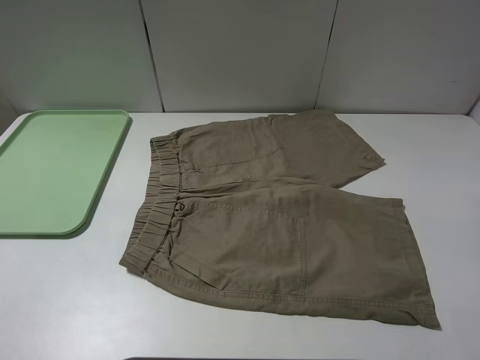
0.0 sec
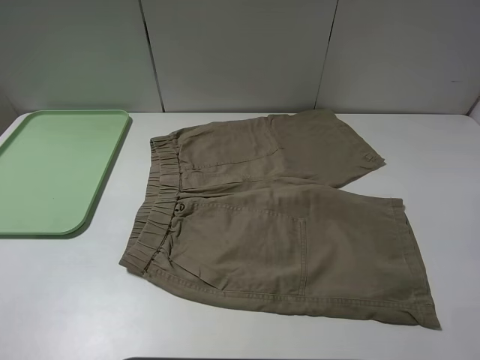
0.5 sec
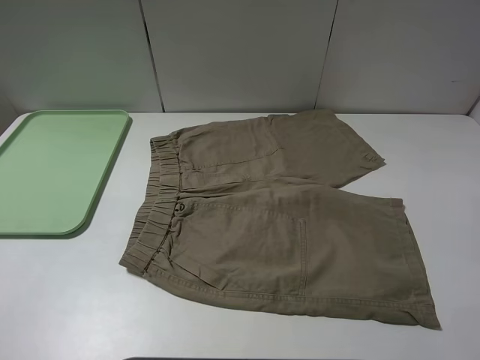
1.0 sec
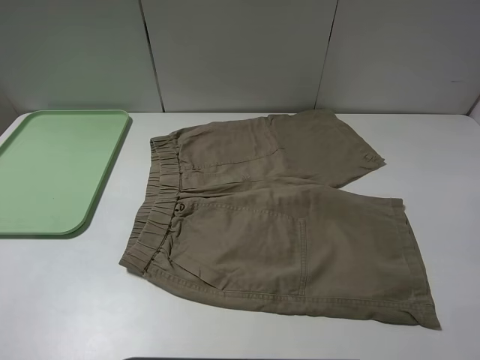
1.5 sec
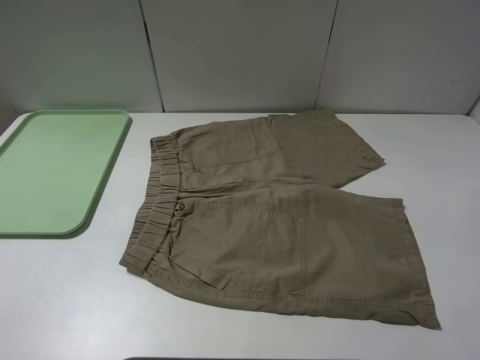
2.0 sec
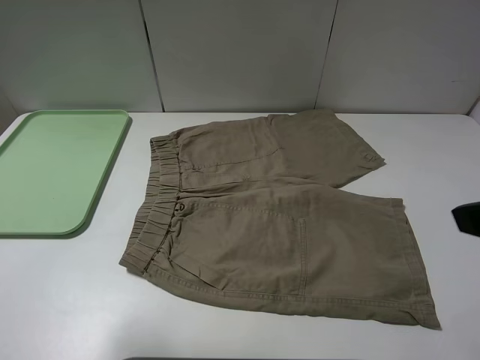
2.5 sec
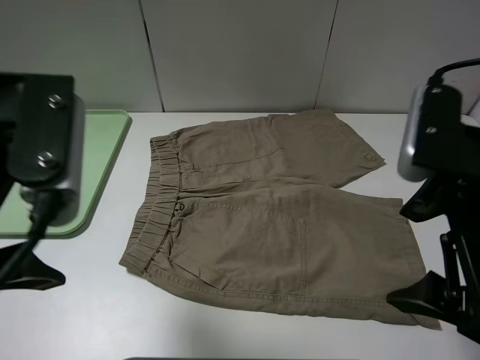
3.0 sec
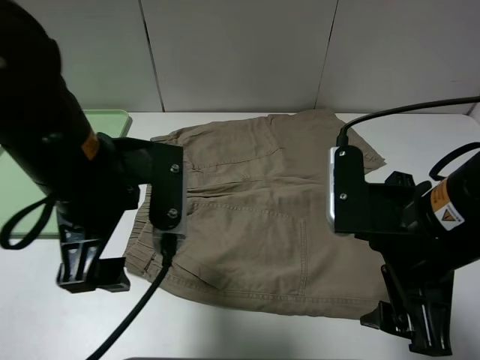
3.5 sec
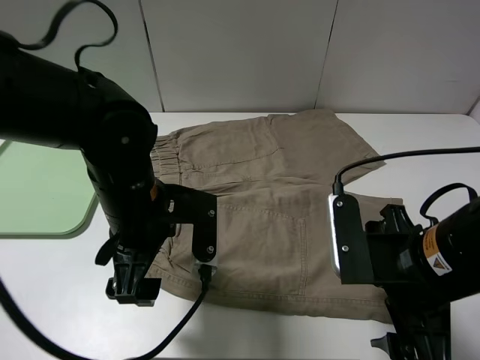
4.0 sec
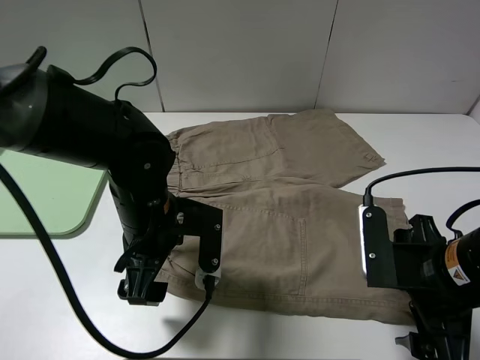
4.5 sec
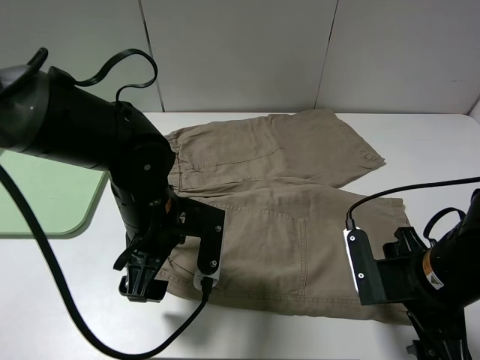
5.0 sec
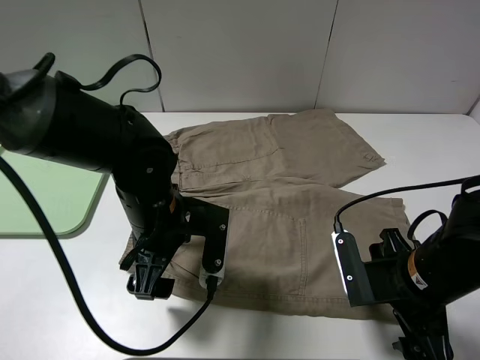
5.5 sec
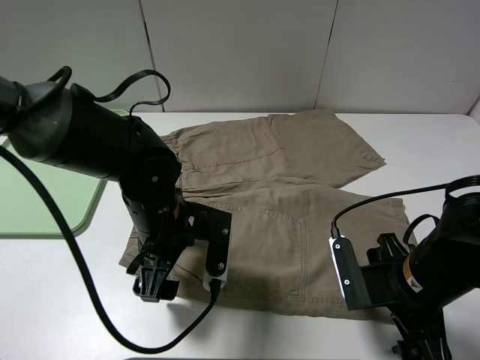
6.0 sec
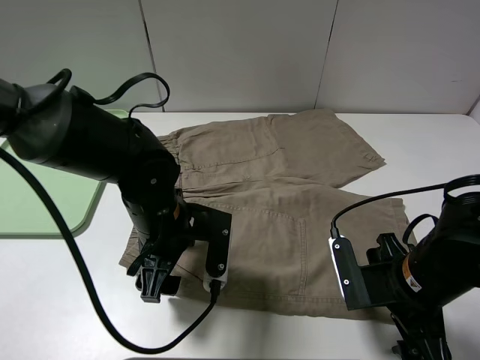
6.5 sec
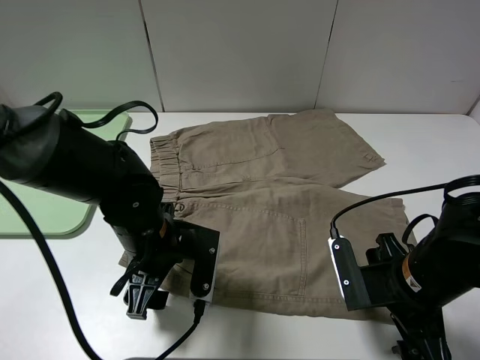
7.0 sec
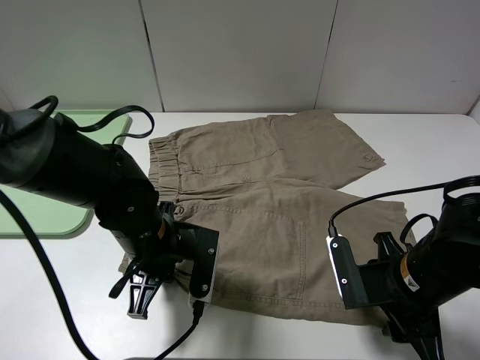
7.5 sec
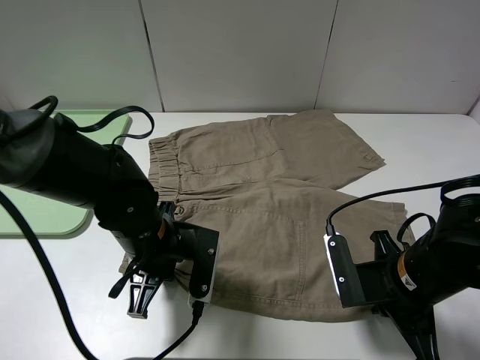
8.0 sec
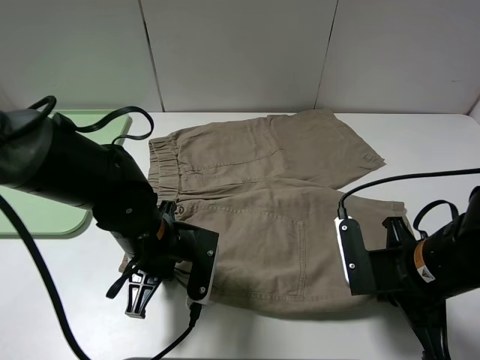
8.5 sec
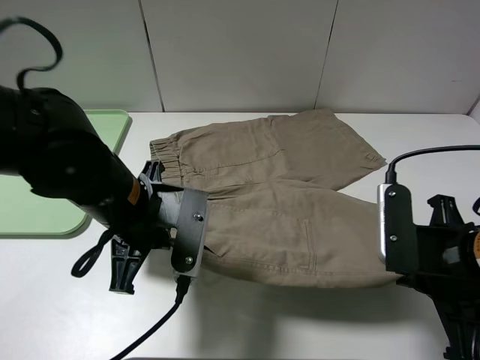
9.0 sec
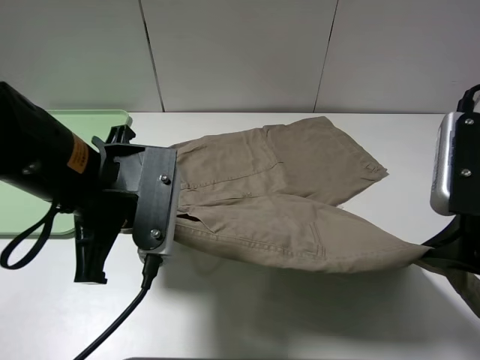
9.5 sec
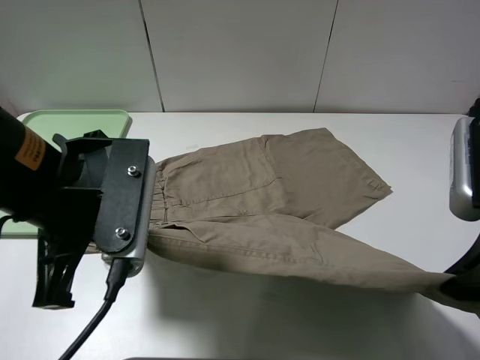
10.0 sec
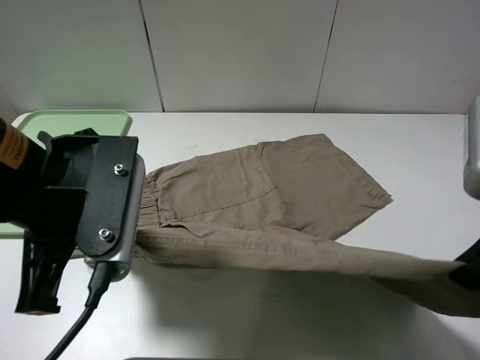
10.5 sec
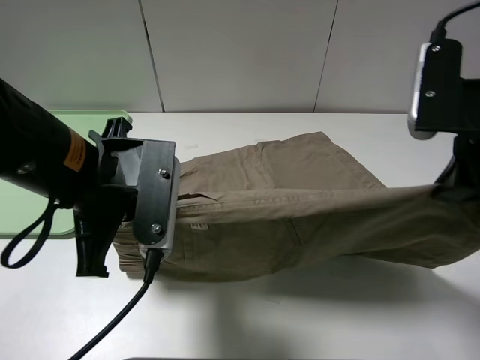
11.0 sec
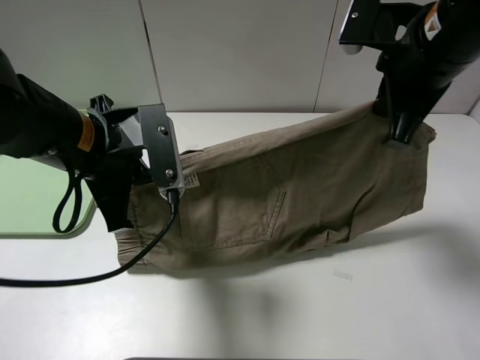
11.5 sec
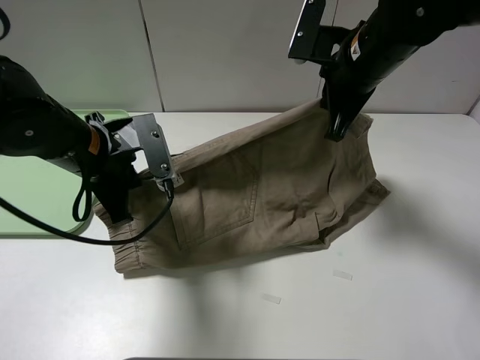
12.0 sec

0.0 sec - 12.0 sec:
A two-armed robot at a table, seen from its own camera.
Task of the whole recording: fold the khaki jeans in half with two grippers, then fold them in half again, and use the left claw to place the folded fold khaki jeans on the tray.
Step, 0.0 sec - 7.5 sec: Grasp the khaki trousers with the left gripper.
2.0 sec - 4.0 sec: The left gripper shifts some 30 cm to the right, forward and downward; the right gripper travels downward, to the left and forward by some 20 cm.
4.0 sec - 6.0 sec: The right gripper shifts about 10 cm downward.
6.0 sec - 8.0 sec: The left gripper closes up; the right gripper closes up.
8.0 sec - 10.0 sec: Both grippers move upward, some 15 cm.
10.0 sec - 12.0 sec: The left gripper travels forward and downward by approximately 15 cm. Meanwhile the right gripper goes about 25 cm forward.

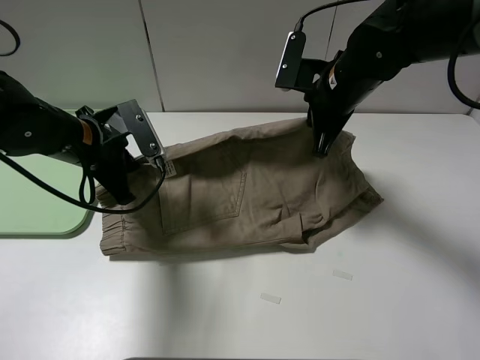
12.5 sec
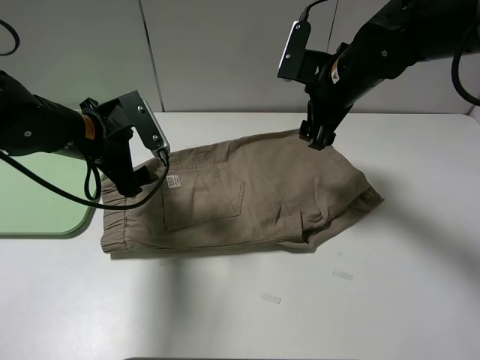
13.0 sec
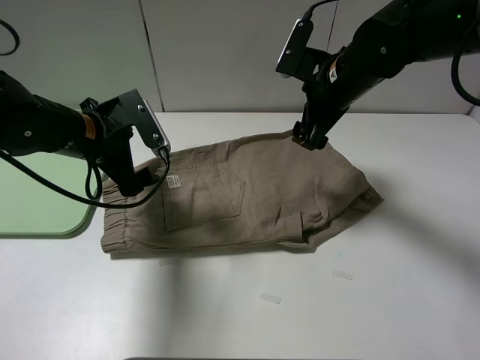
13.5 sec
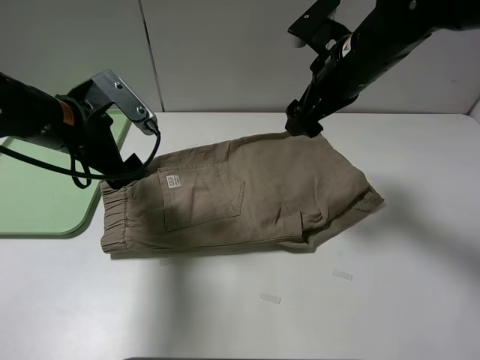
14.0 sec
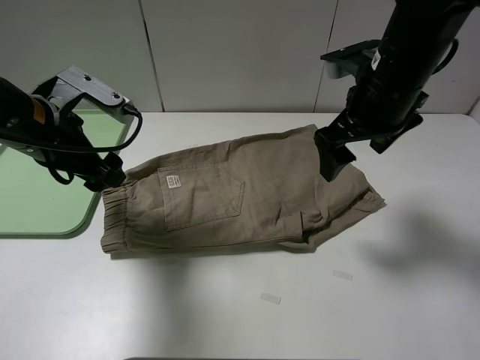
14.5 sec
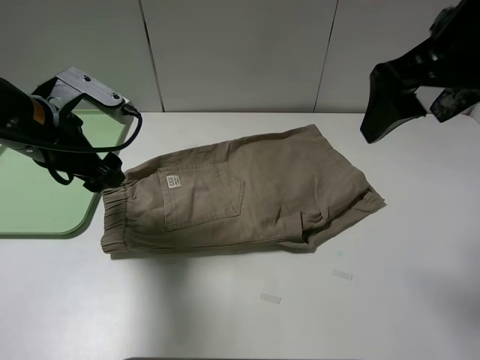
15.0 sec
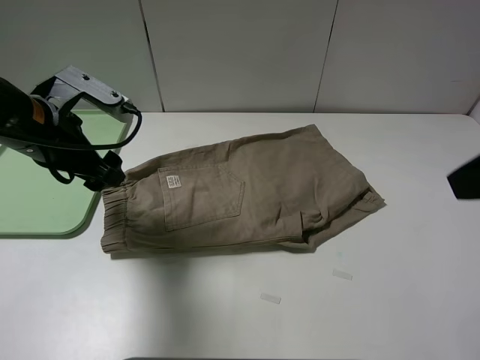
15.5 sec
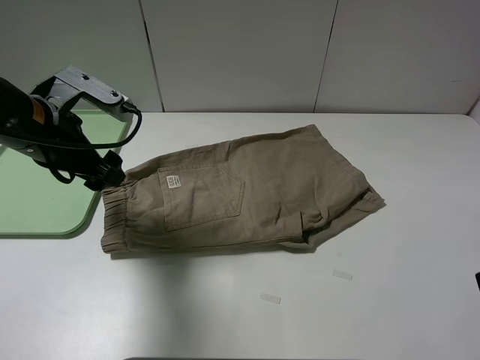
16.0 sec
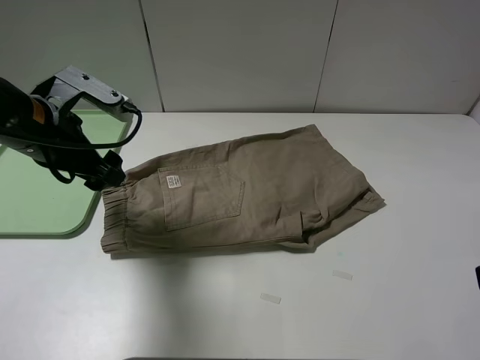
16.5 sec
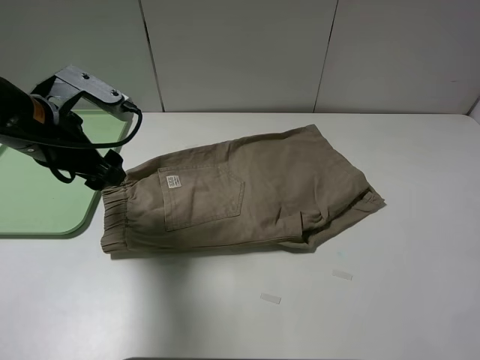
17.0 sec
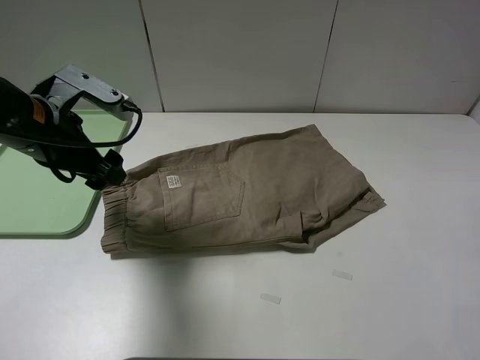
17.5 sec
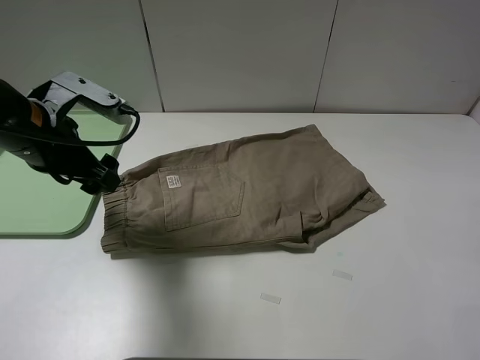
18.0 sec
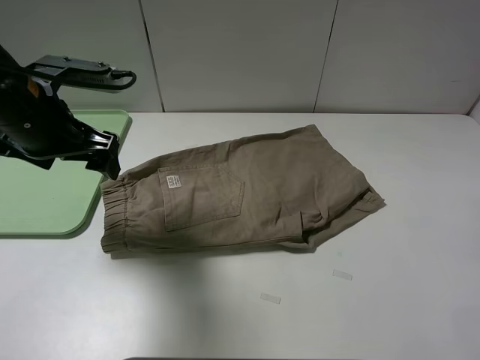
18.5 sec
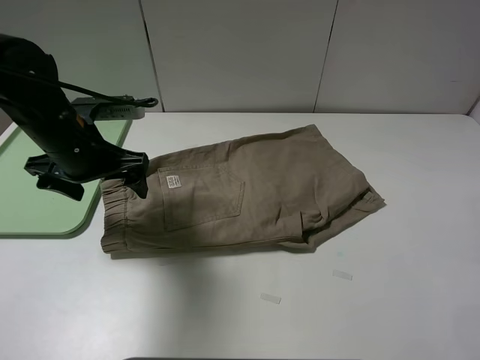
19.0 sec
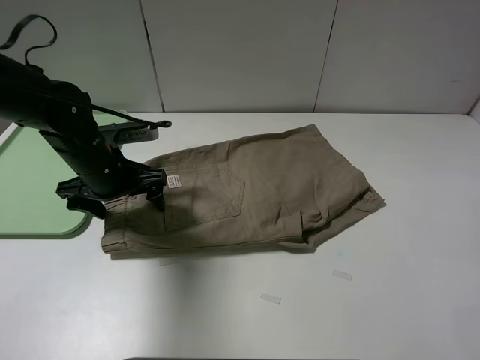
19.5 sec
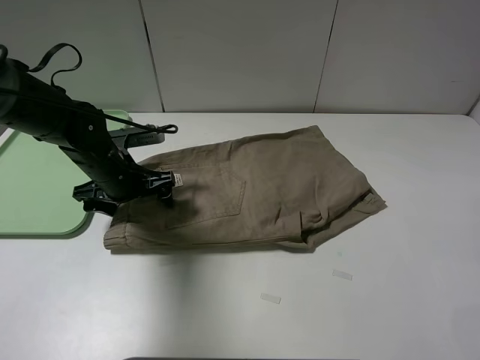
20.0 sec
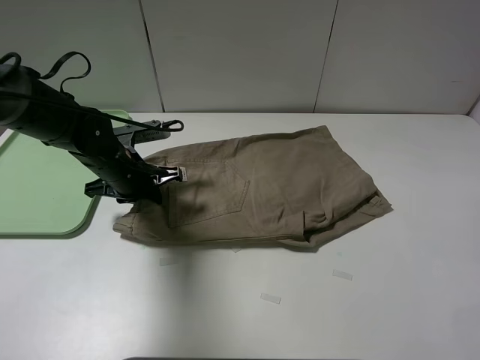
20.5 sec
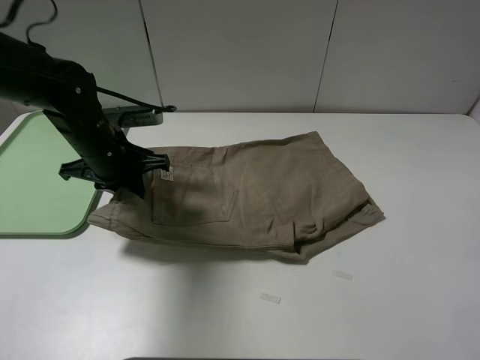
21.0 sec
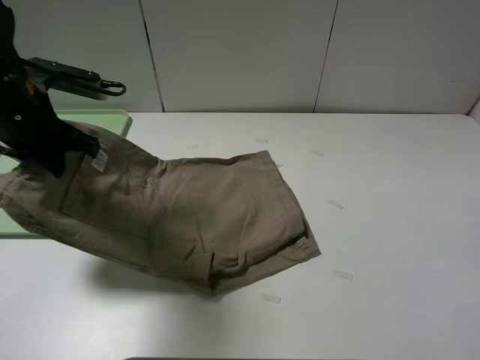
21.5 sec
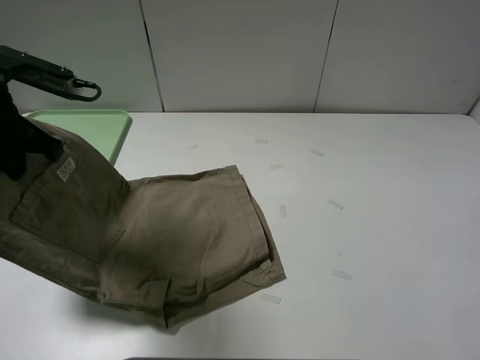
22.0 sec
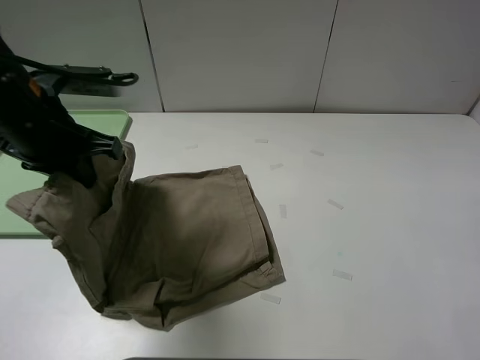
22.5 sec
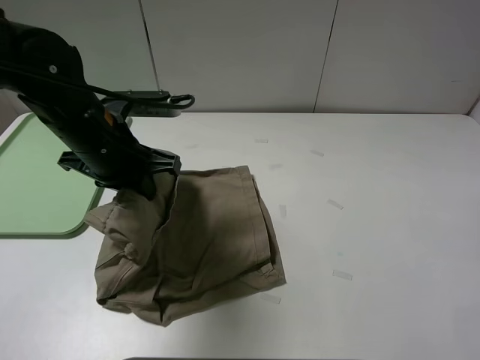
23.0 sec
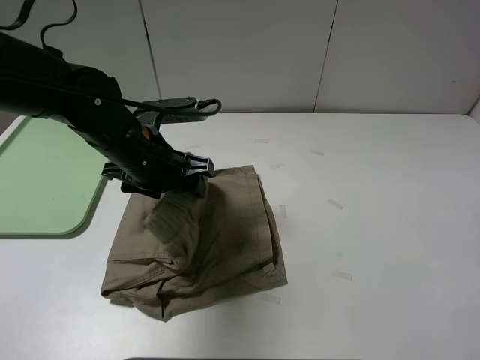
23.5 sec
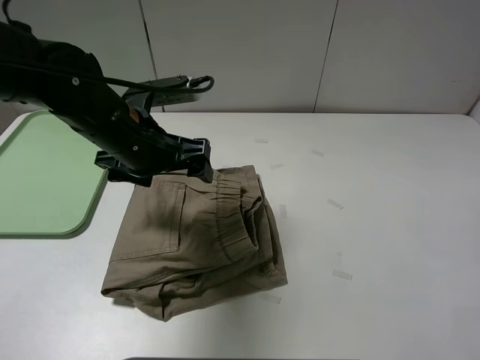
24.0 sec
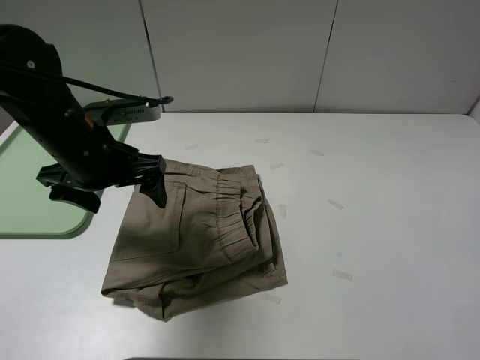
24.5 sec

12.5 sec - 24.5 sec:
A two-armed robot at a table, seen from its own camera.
Task of the whole recording: fold the khaki jeans in half with two grippers, then fold them in half again, and use the left claw to place the folded fold khaki jeans on the tray.
Step, 13.5 sec - 20.5 sec: Grasp the khaki trousers with the left gripper.
Step, 21.0 sec - 23.5 sec: Fold the khaki trousers from left to right with the left gripper.
12.5 sec - 14.5 sec: The right gripper moves backward, about 5 cm, and opens its fingers; the left gripper changes place by some 5 cm, and opens up.
14.5 sec - 16.5 sec: The right gripper heads backward and to the right, covering approximately 30 cm.
18.5 sec - 20.5 sec: The left gripper goes some 15 cm downward, and closes.
20.5 sec - 22.5 sec: The left gripper shifts some 15 cm upward and backward.
22.5 sec - 24.5 sec: The left gripper goes to the right and returns, roughly 10 cm each way, and opens.

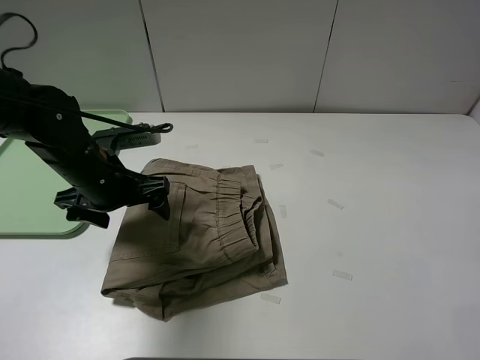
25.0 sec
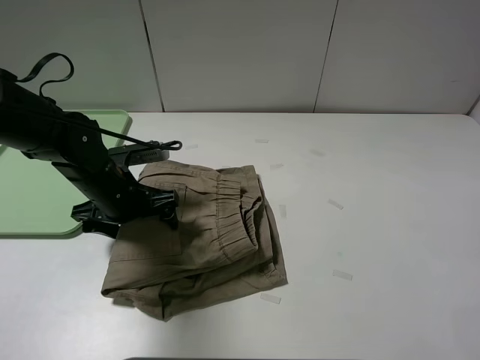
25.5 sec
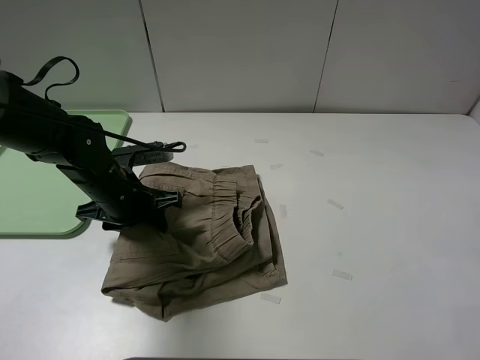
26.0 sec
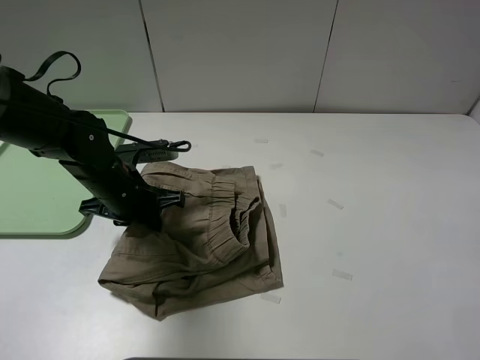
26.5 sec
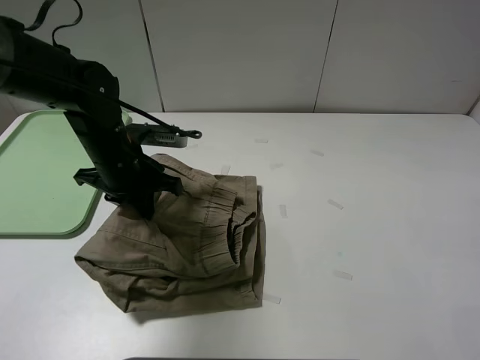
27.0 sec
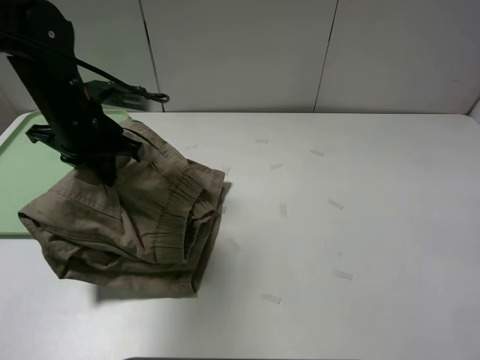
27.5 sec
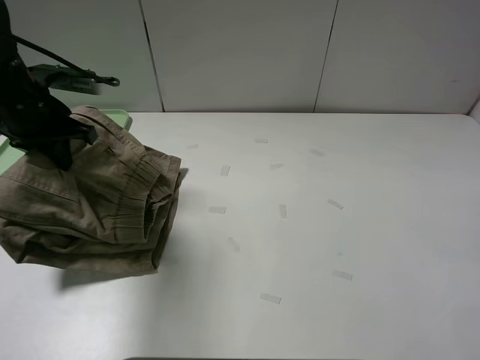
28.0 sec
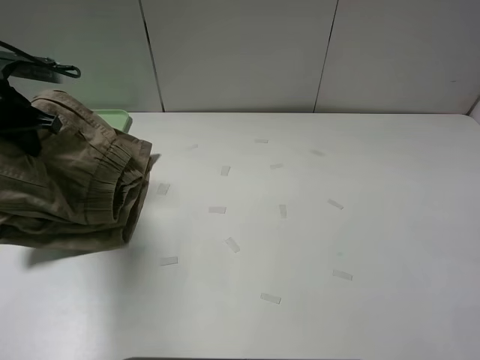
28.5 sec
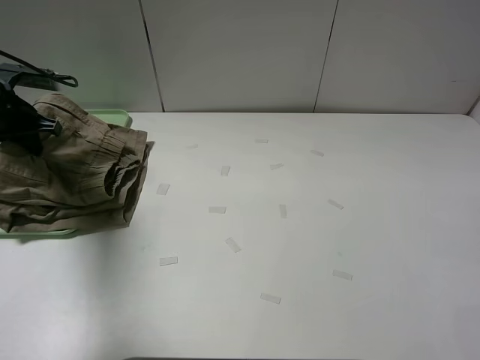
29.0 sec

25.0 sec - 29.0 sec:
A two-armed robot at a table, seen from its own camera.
Task of the whole recording: fold the khaki jeans in half with two grippers, then fold them in half again, and use the left claw to place the folded fold khaki jeans on the tray.
25.0 sec - 27.0 sec: The left gripper closes its fingers.
27.0 sec - 29.0 sec: The left gripper moves to the left, approximately 20 cm.
